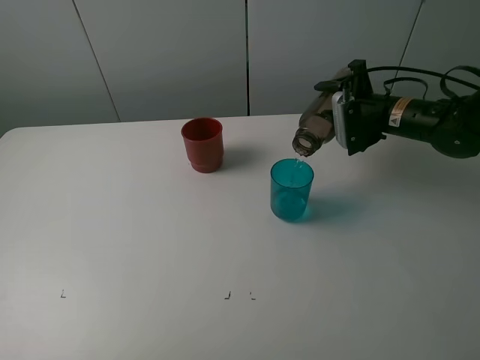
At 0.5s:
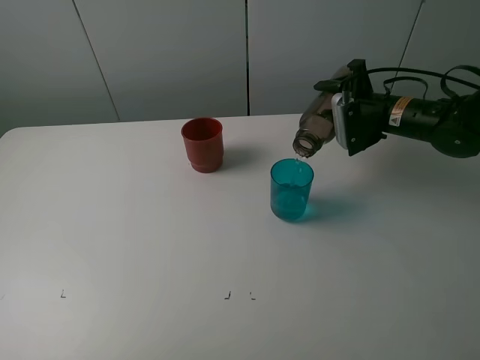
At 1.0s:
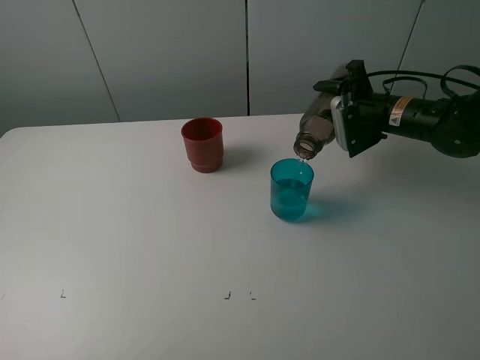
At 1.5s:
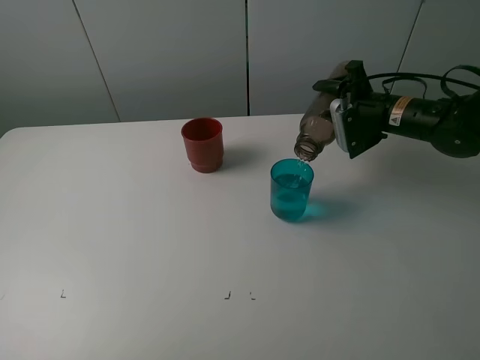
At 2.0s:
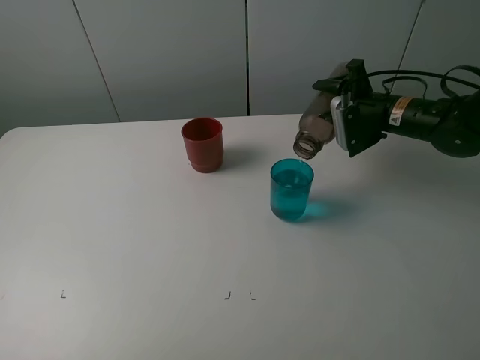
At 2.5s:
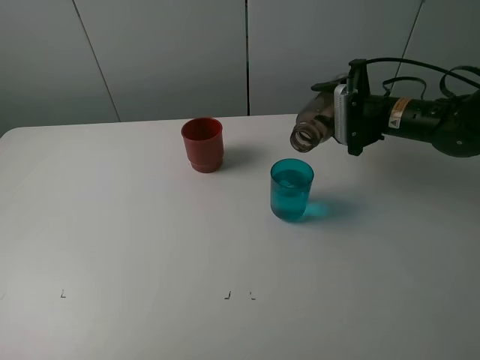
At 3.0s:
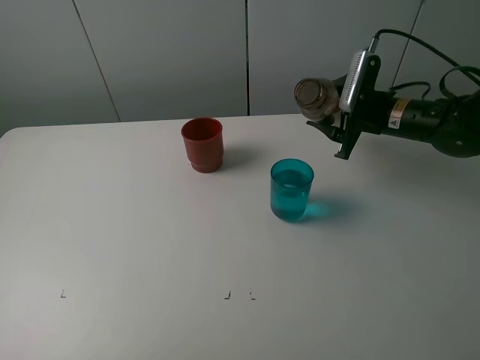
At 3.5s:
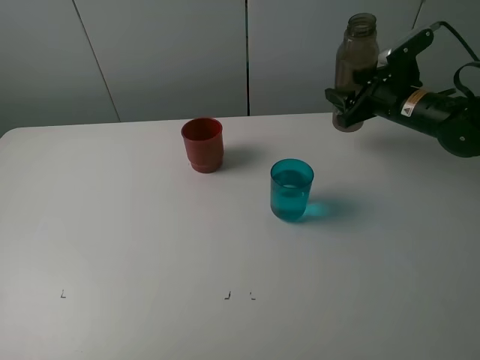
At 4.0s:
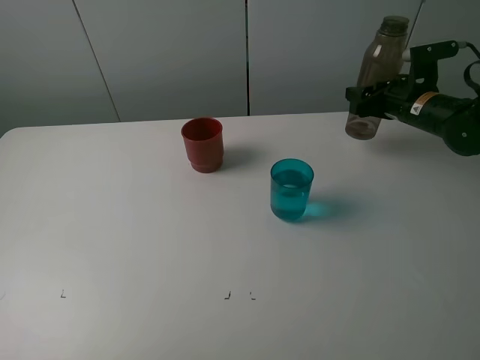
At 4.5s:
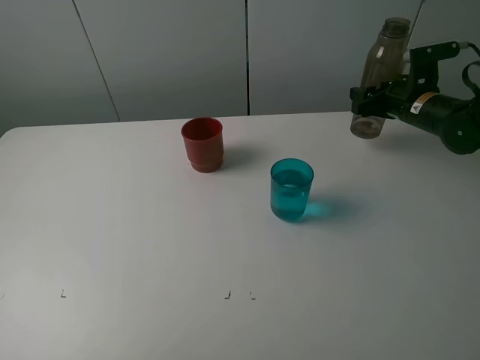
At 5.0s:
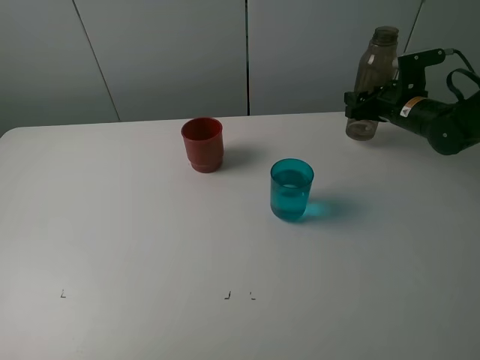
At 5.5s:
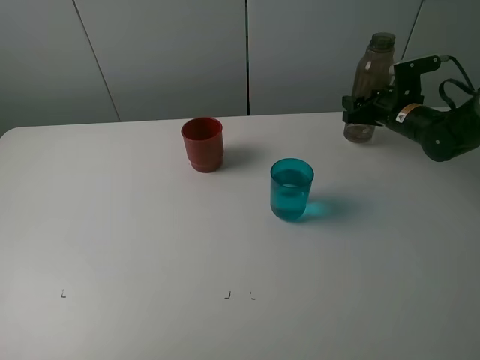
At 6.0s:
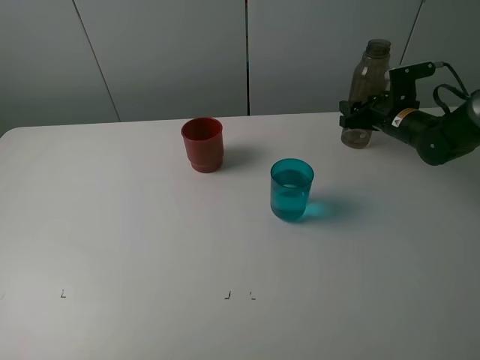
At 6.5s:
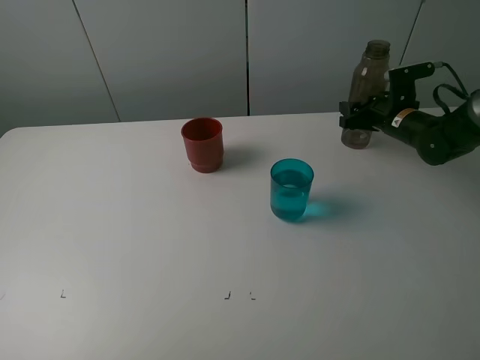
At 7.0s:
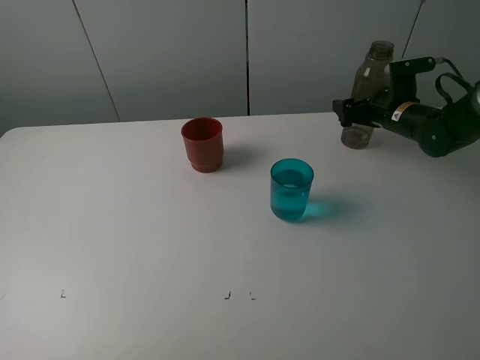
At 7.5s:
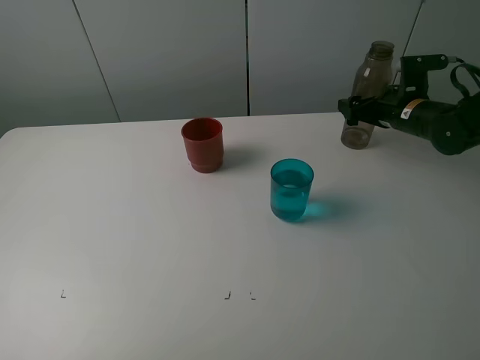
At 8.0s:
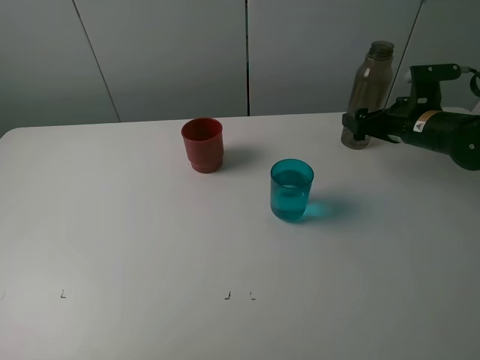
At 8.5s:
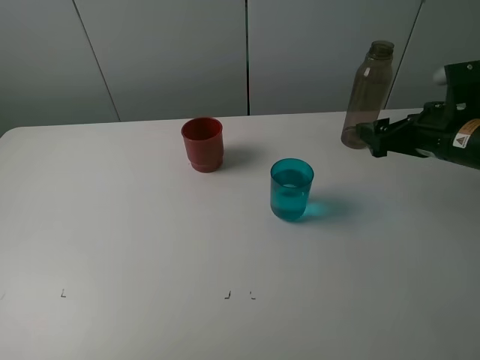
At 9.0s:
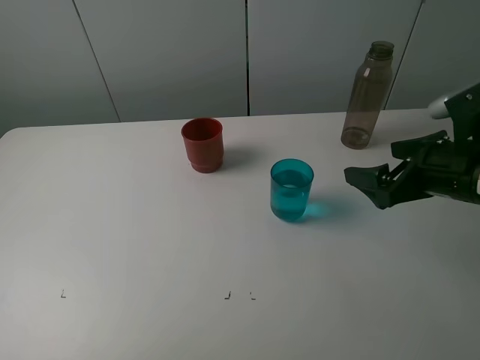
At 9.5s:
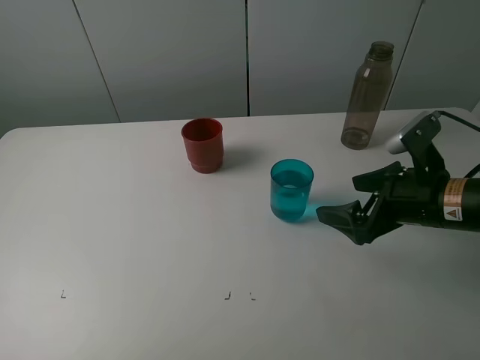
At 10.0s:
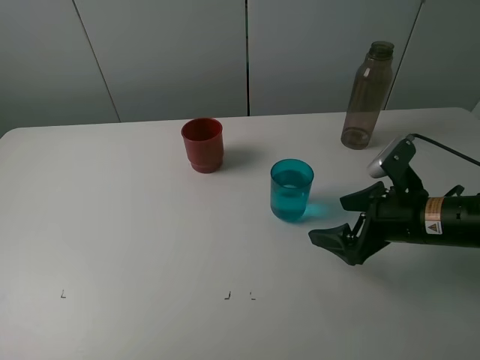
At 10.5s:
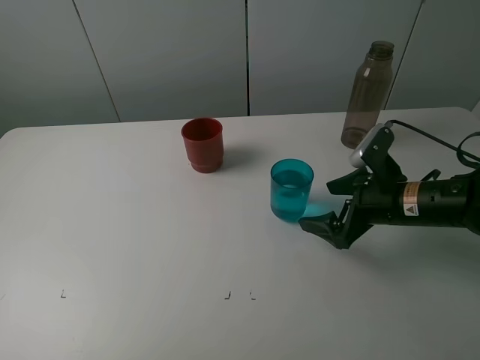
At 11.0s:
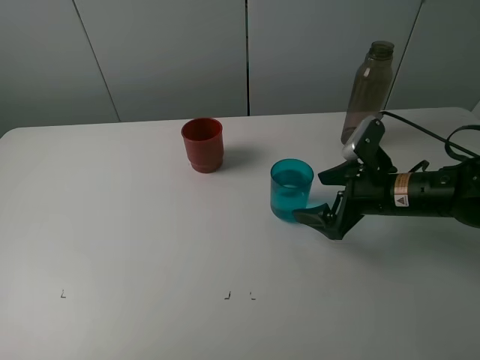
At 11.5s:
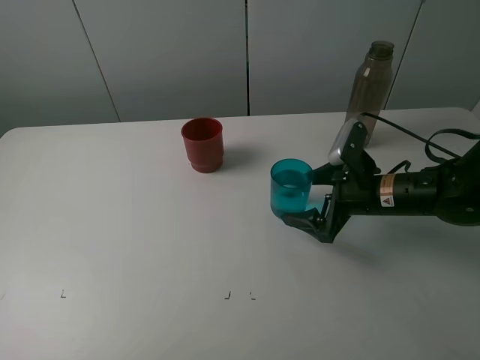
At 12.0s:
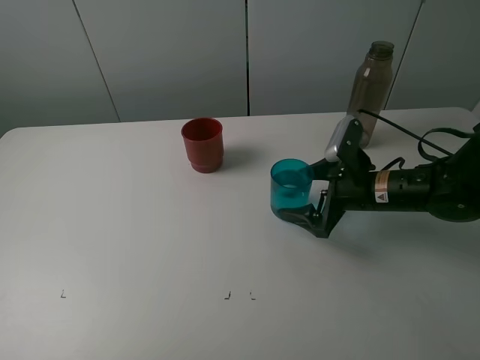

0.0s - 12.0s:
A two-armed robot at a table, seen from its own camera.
Task of the whole recording: pick up the bottle and pour water into the cup, then pick up the cup containing water and pour it into another cup.
Step, 2.5s - 6.5s: Place the brown bottle with the right gripper.
0.0s - 2.0s: The grippers stay close to where they were, moving slightly.
2.0s - 4.0s: The right gripper moves some 5 cm.
4.0s - 6.0s: The right gripper ends up some 5 cm from where it was.
6.0s - 8.0s: The right gripper is displaced backward by roughly 5 cm, and opens.
8.0s - 10.0s: The right gripper shifts some 15 cm backward.
10.0s - 12.0s: The right gripper heads forward, covering some 5 cm.

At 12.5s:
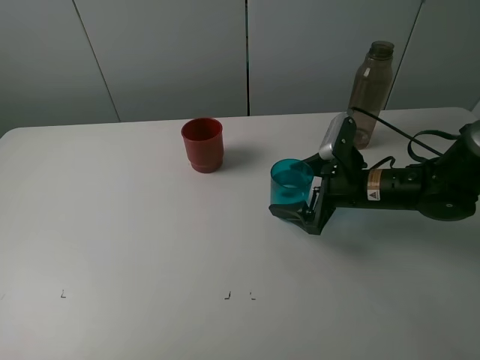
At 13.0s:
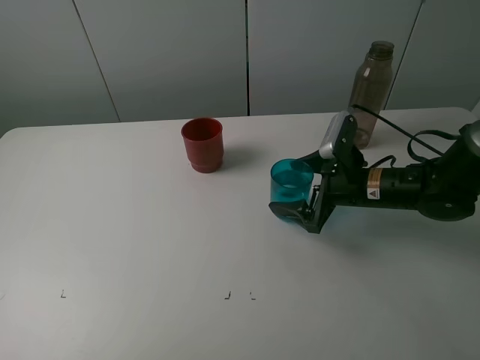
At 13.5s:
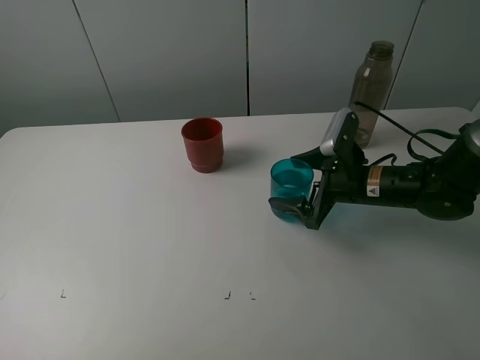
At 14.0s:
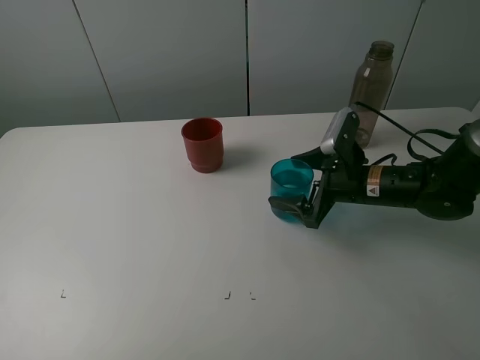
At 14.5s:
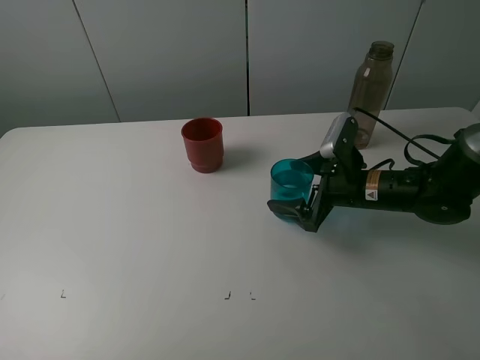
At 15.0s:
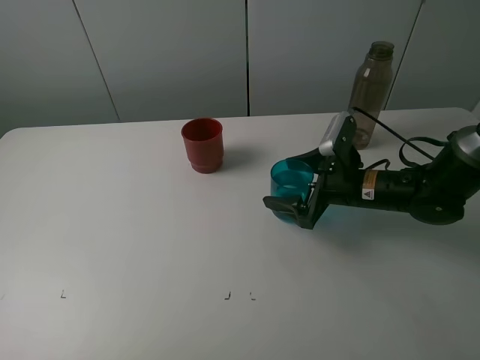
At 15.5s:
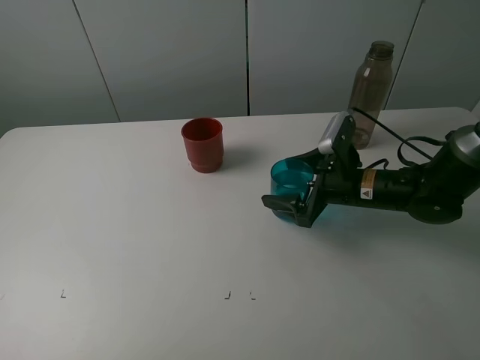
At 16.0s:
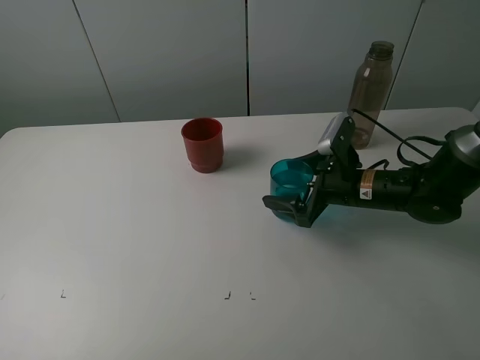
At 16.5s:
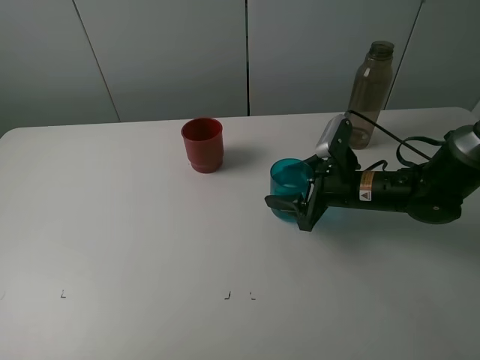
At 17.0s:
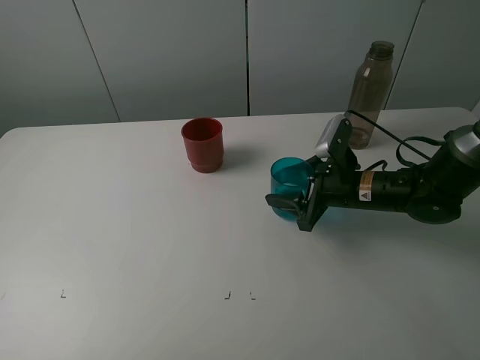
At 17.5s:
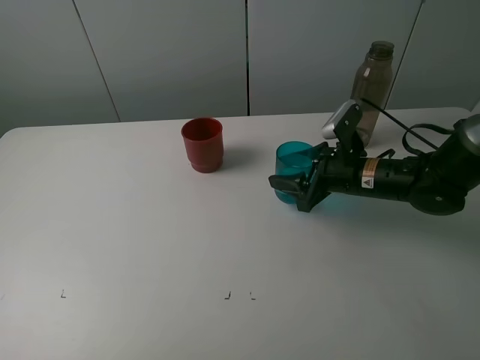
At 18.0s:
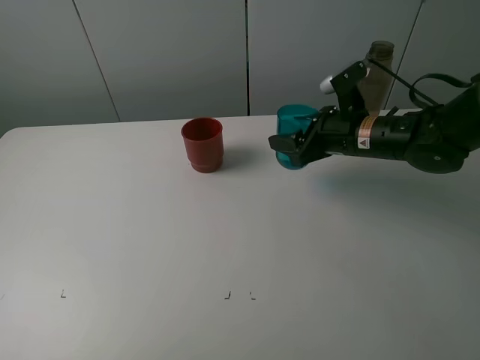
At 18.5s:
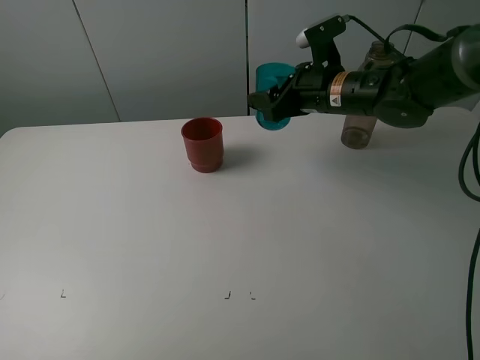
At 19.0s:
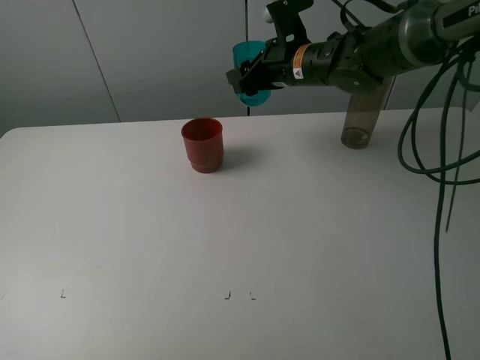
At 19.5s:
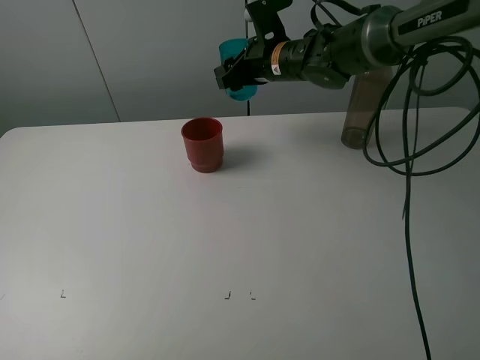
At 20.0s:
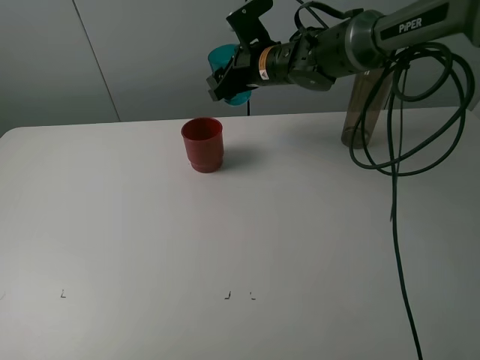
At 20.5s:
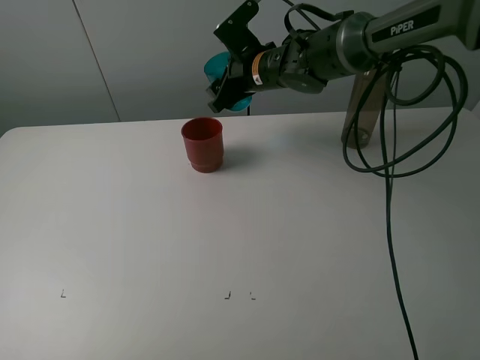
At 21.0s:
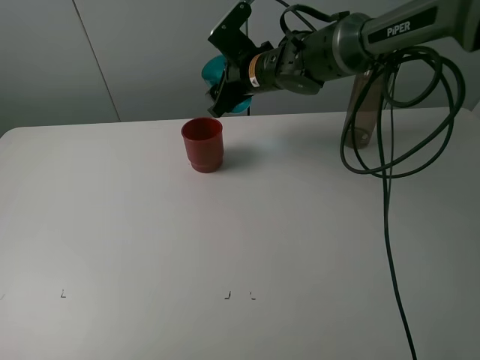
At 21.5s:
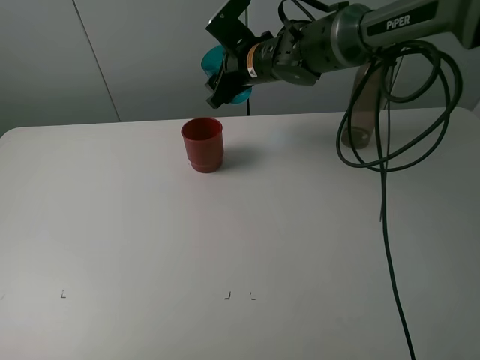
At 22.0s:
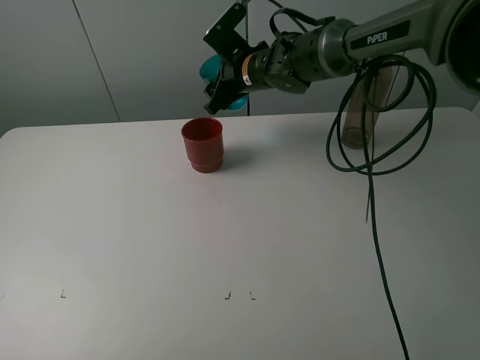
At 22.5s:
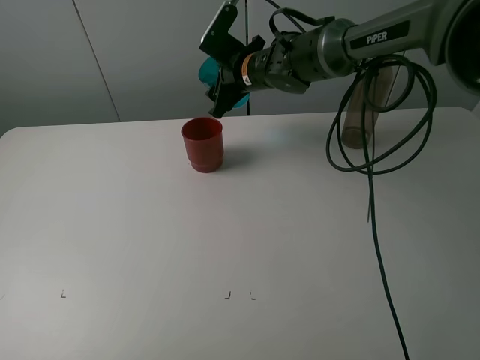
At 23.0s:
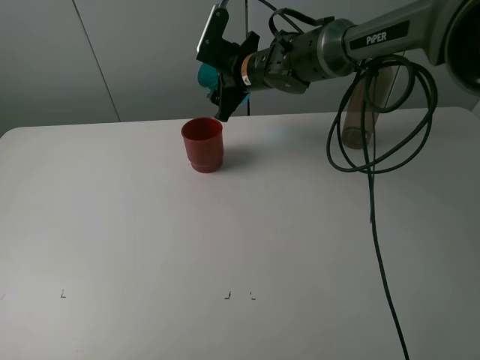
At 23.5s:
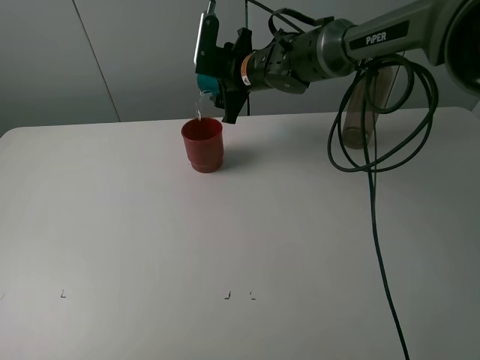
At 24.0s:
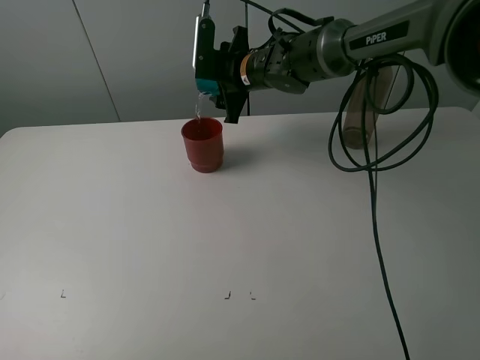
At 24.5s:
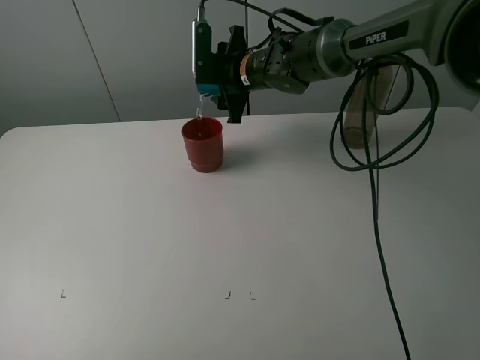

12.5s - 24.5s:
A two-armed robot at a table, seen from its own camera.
Task of the whole recording: pick up the bottle and pour water into the cup, then pick up the cup containing water and pour it into another cup.
Step, 12.5s - 16.5s: Grasp the blue cup with the right gripper.
12.5s - 14.5s: Both grippers stay put.
14.5s - 16.5s: The right gripper closes its fingers.
16.5s - 18.5s: The right gripper moves upward and forward, some 15 cm.
18.5s - 20.5s: The right gripper goes some 10 cm to the left and forward.
20.5s - 22.5s: The grippers stay close to where they were, moving slightly.

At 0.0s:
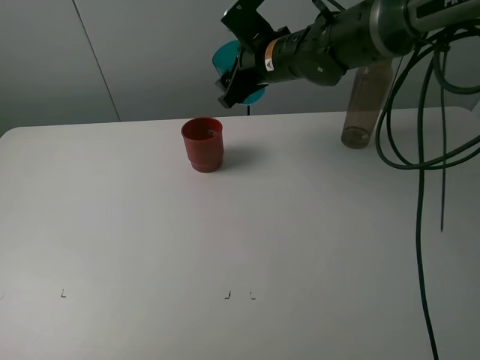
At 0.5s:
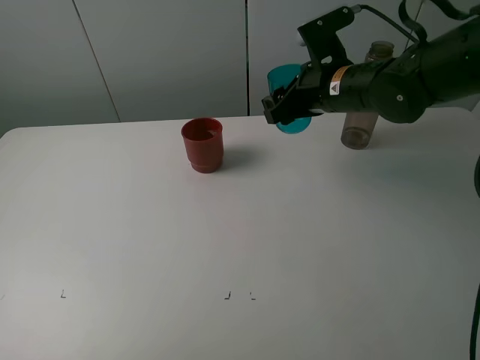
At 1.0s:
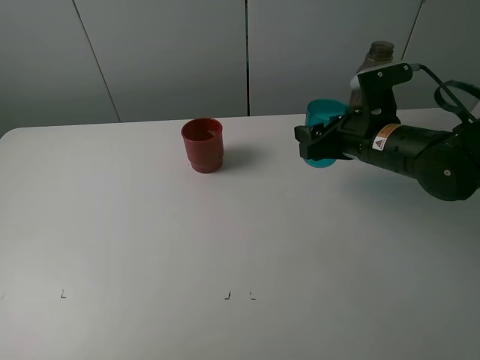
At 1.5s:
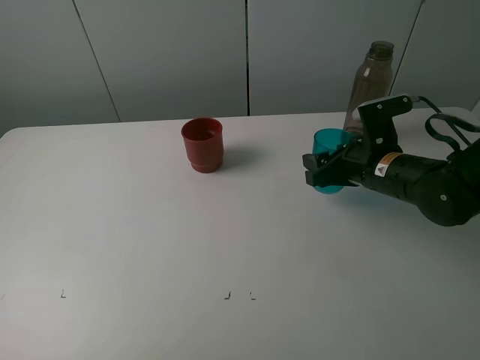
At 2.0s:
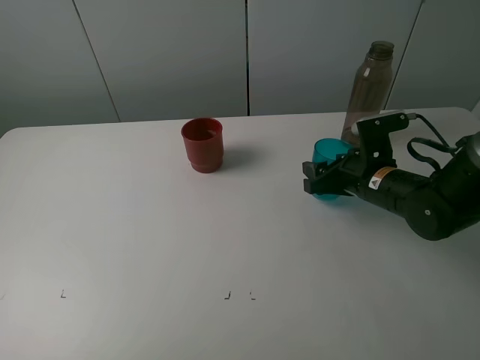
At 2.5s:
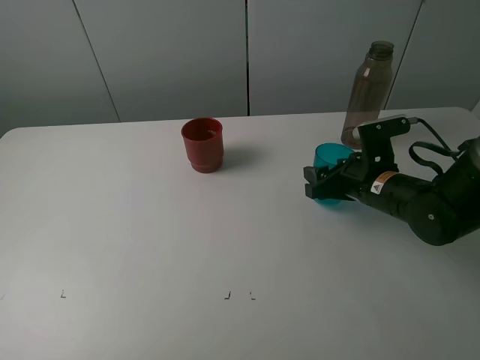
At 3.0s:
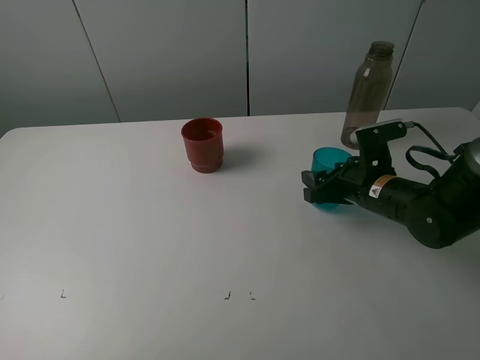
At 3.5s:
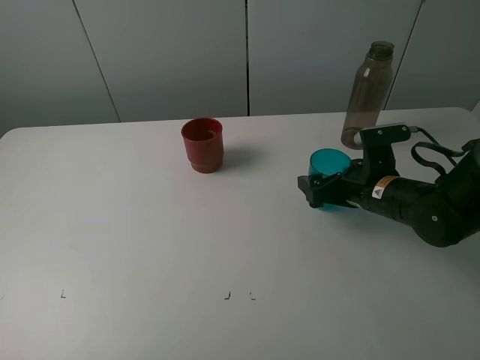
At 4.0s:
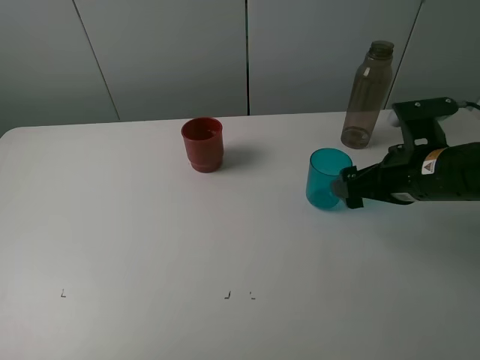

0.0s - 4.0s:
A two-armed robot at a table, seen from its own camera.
Task of the whole recording: pick up the bottle and pour water into the cup, then pick up the cup containing water and pour it into another cup.
Step, 0.0s - 3.0s: Place the blue cup with the right gripper.
0.0s - 2.0s: The right gripper is displaced to the right, backward and downward by about 20 cm.
2.0s - 4.0s: The right gripper is displaced upward and backward by about 10 cm, and opens.
